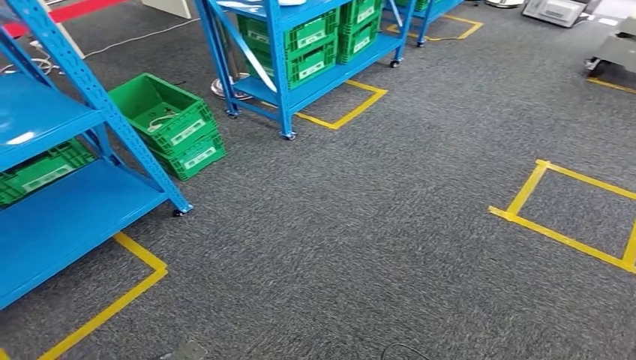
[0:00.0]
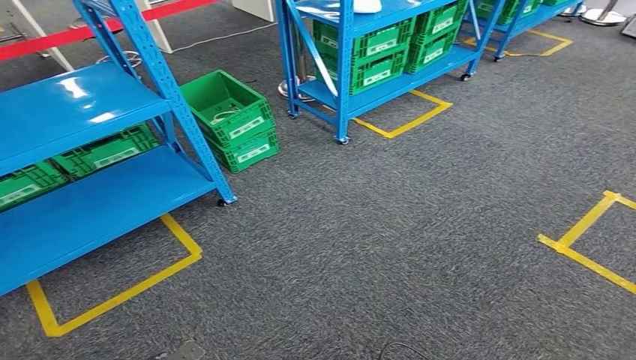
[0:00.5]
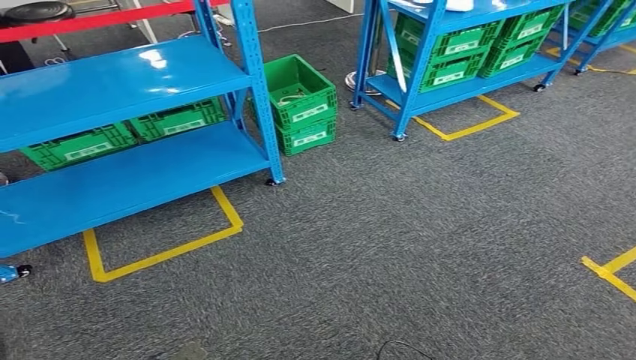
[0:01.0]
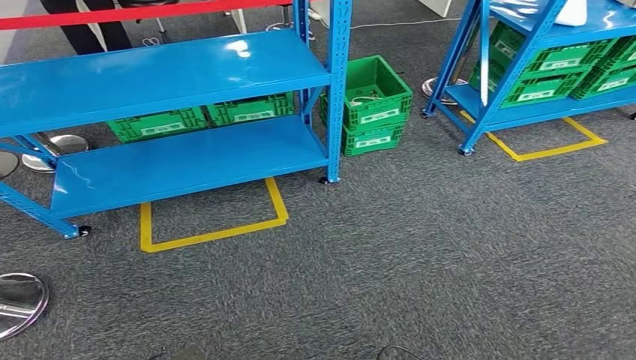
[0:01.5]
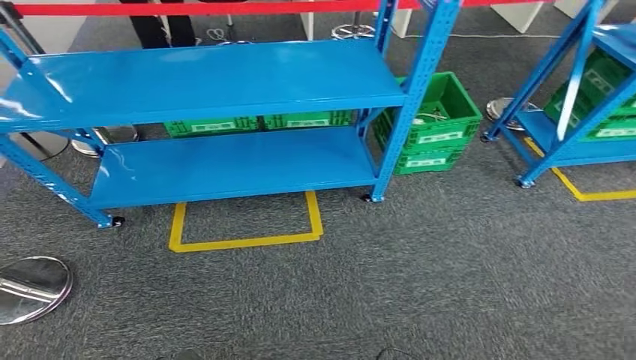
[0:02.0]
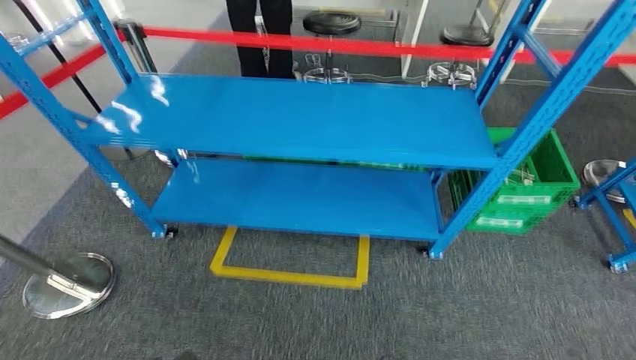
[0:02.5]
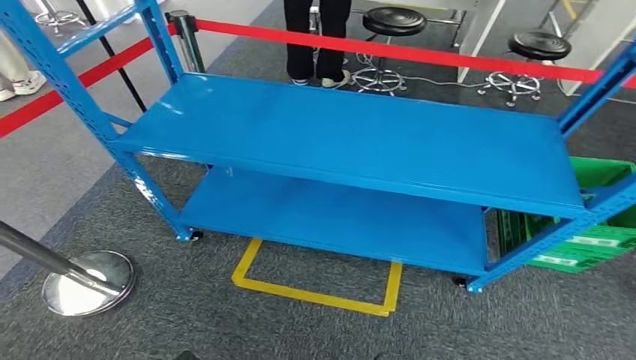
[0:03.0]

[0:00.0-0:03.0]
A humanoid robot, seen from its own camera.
Step, 0:00.0 to 0:03.0: Move to the initial position of the workbench.
